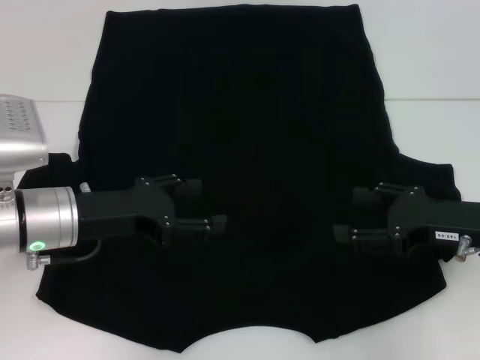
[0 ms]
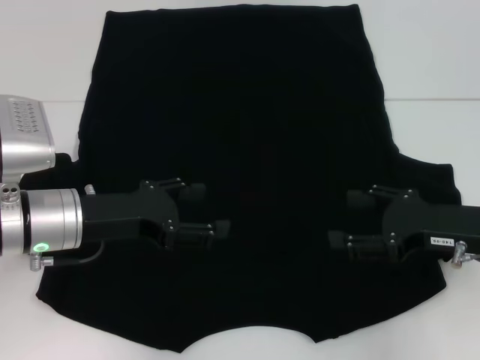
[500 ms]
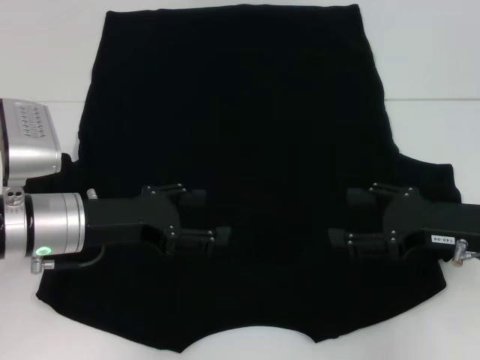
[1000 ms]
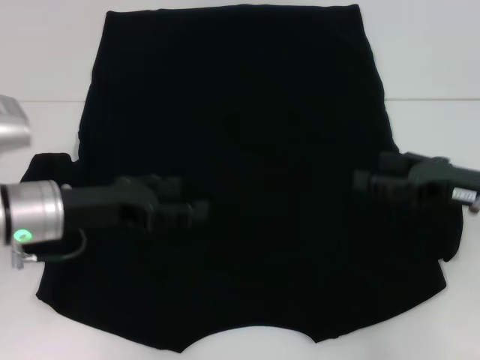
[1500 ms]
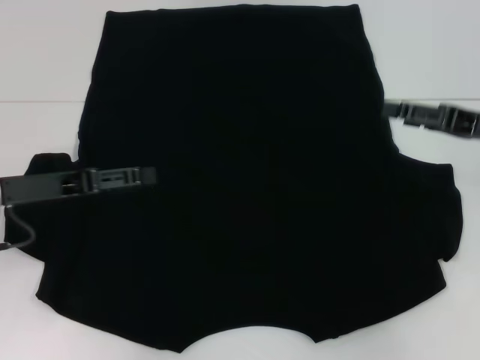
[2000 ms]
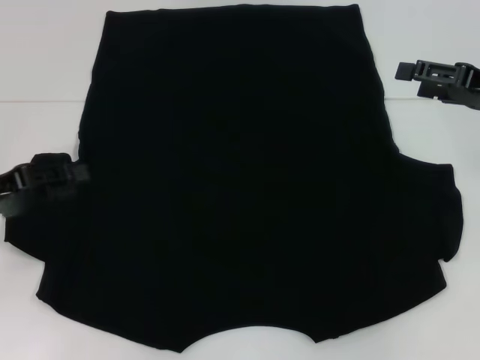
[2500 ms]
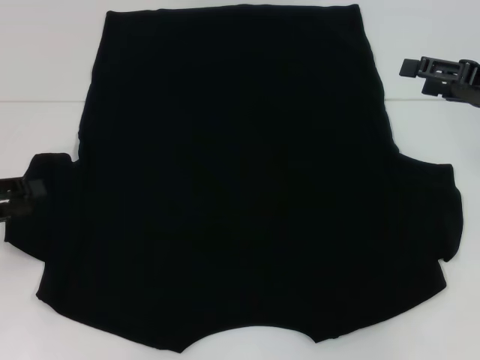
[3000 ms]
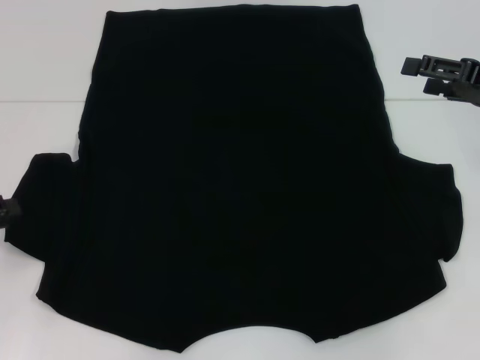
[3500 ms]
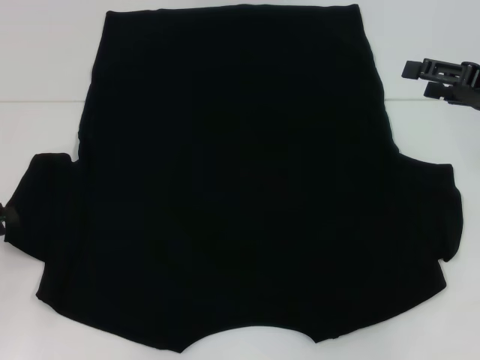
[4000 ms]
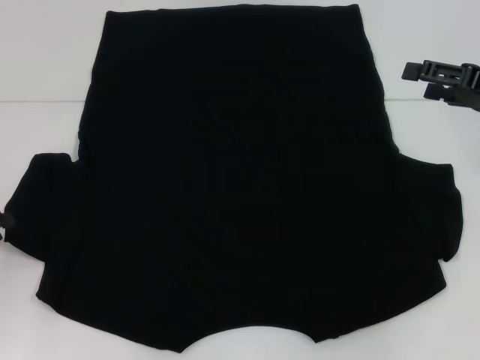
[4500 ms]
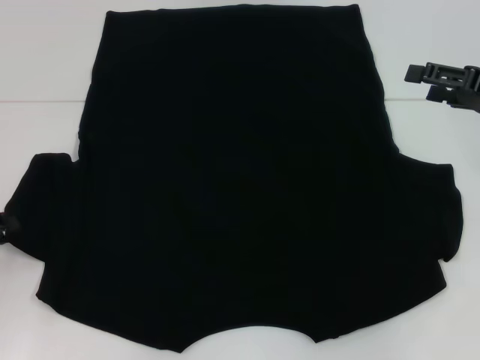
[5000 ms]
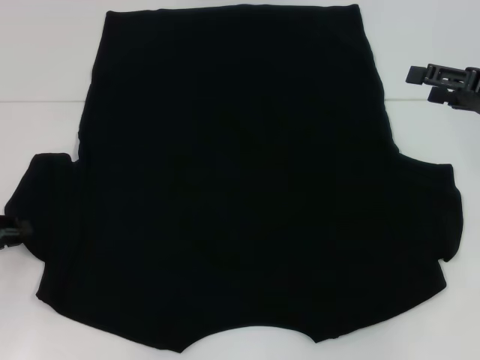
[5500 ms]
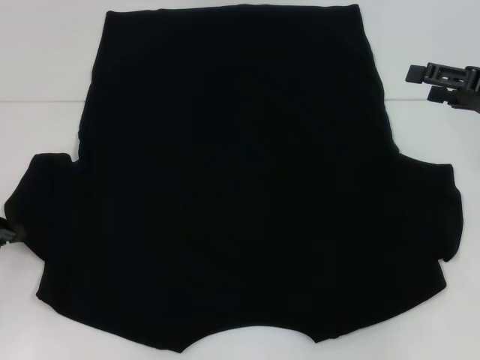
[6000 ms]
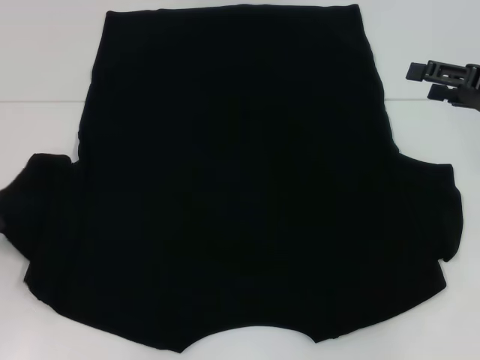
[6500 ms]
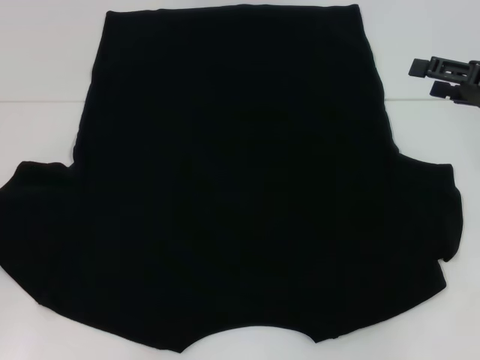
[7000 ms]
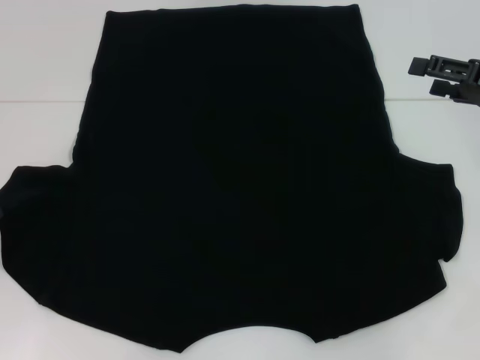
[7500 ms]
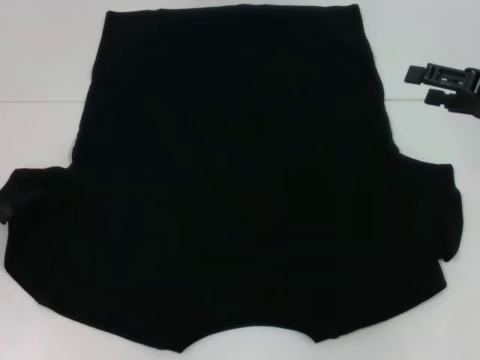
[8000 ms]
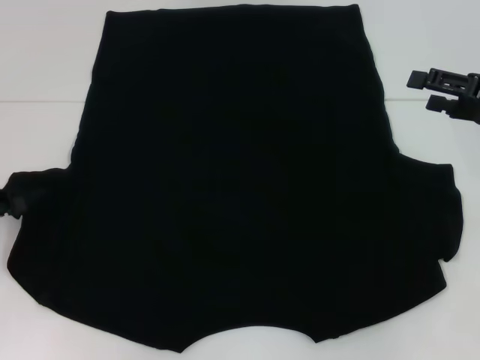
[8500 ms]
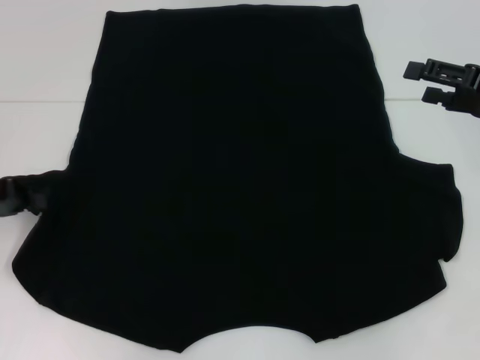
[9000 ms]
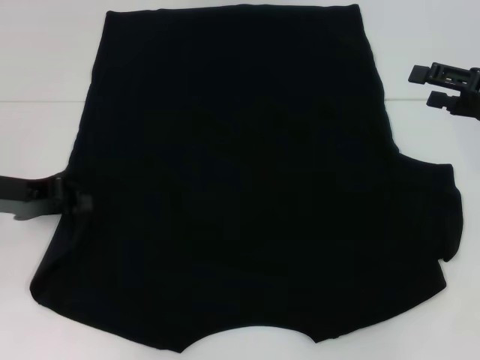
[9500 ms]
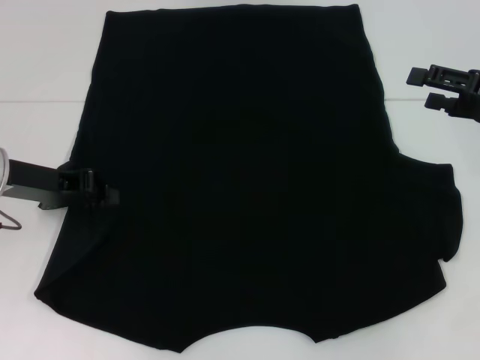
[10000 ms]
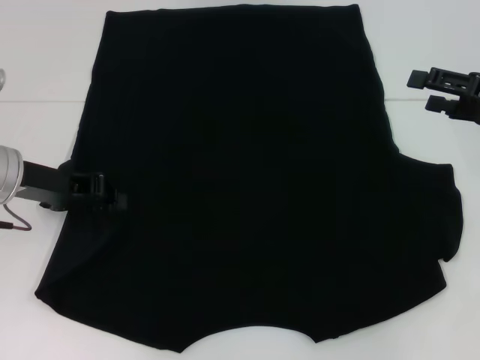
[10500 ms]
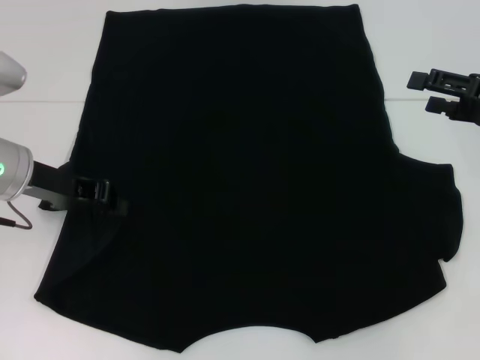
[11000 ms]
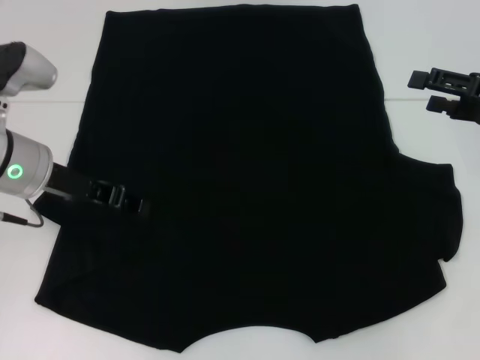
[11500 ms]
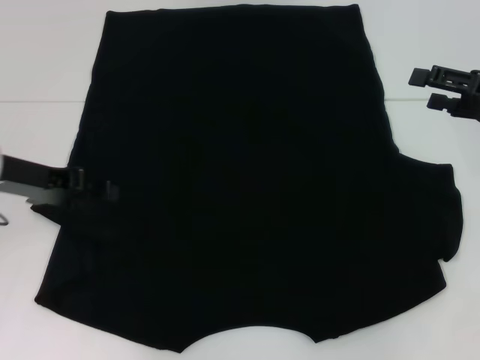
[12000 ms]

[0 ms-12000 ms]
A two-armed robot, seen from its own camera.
Step, 0 ms to 11500 ms: Fold the bottom left sleeve with your left hand.
0 ms to 2000 ms: The right gripper moves upward and forward, about 10 cm, while the left gripper shifts approximately 5 cm to the left.
2000 ms to 4000 ms: The left gripper is displaced to the left by some 10 cm, and closes.
4000 ms to 8000 ms: There are only small adjustments of the grippers.
8000 ms to 10000 ms: The left gripper shifts some 10 cm to the right and forward.
10000 ms to 12000 ms: The left gripper opens its fingers.

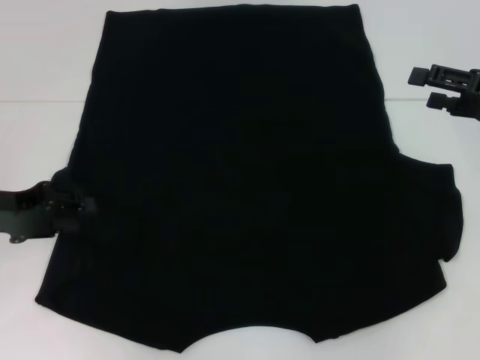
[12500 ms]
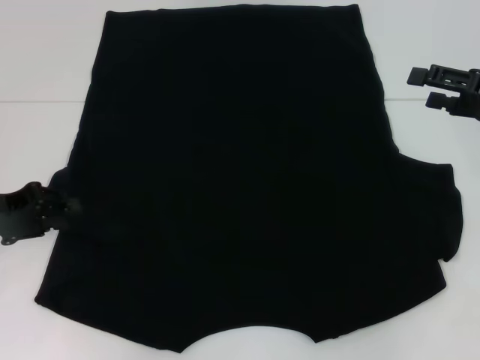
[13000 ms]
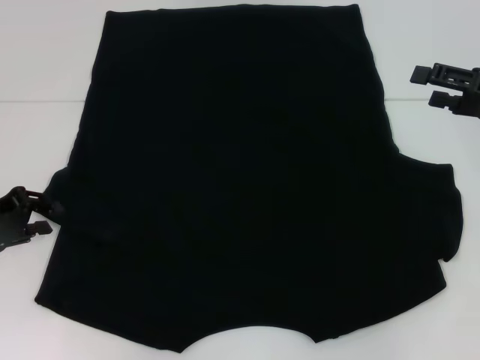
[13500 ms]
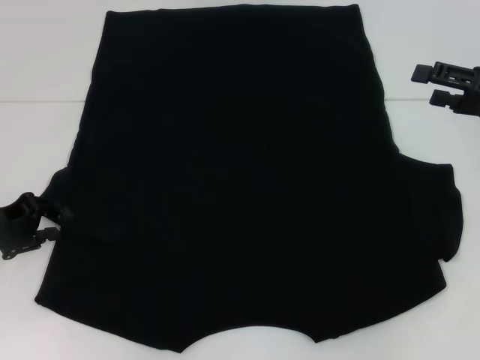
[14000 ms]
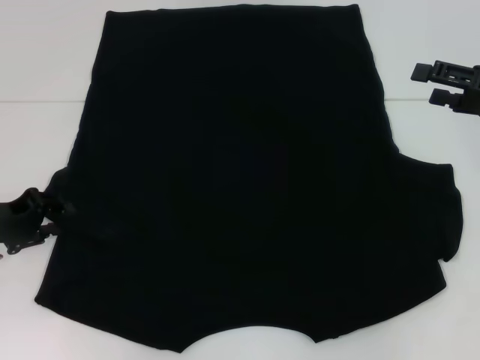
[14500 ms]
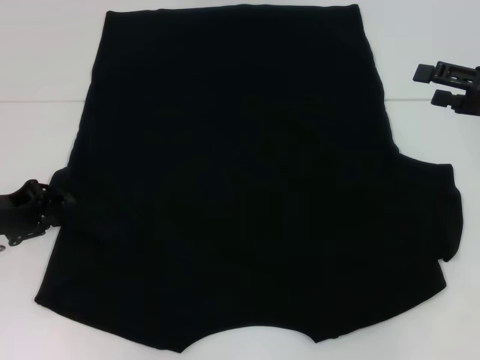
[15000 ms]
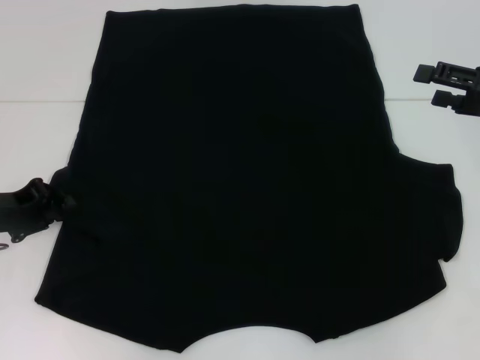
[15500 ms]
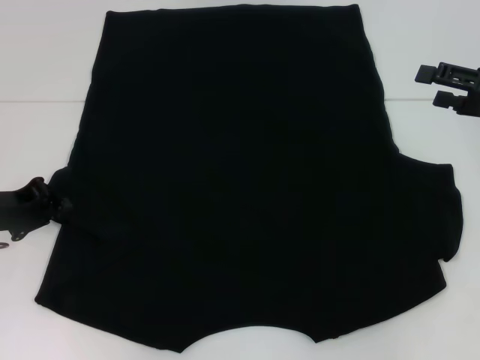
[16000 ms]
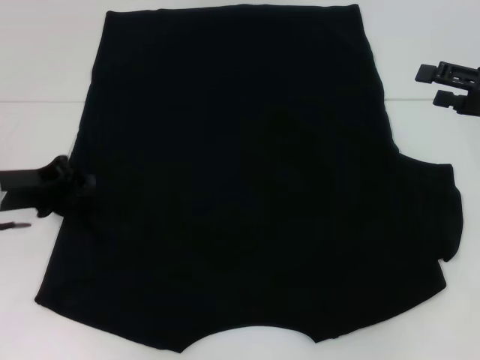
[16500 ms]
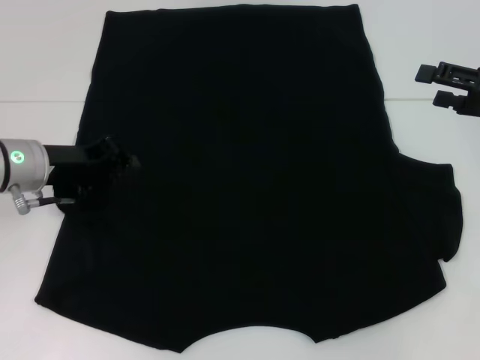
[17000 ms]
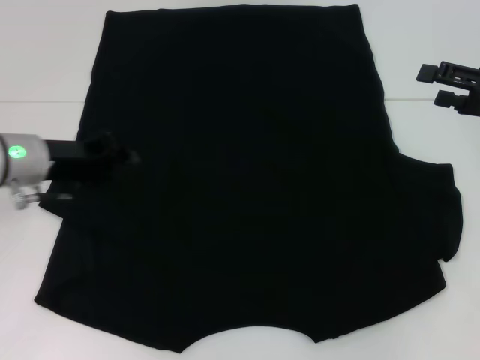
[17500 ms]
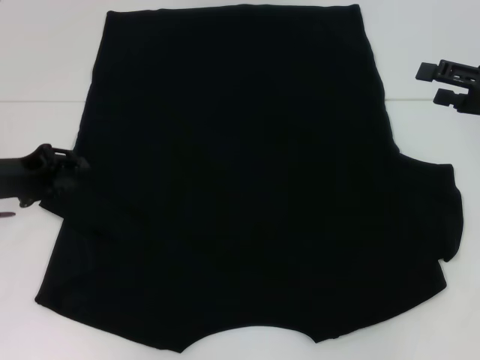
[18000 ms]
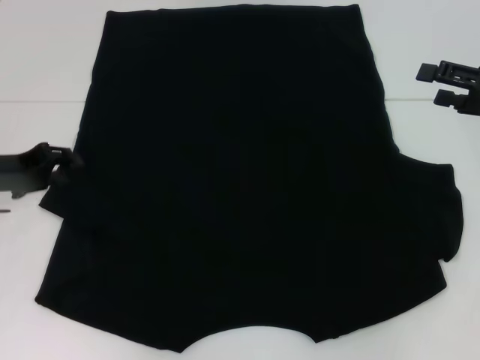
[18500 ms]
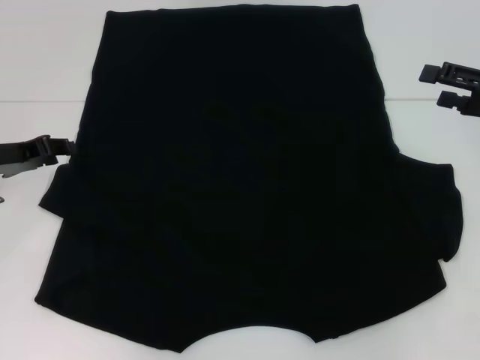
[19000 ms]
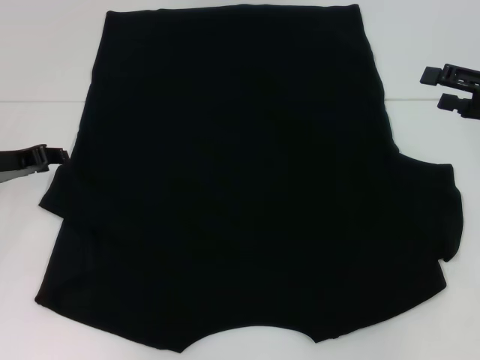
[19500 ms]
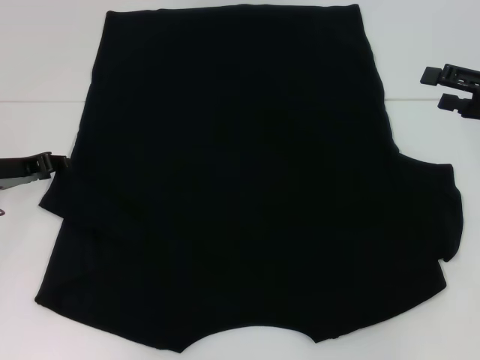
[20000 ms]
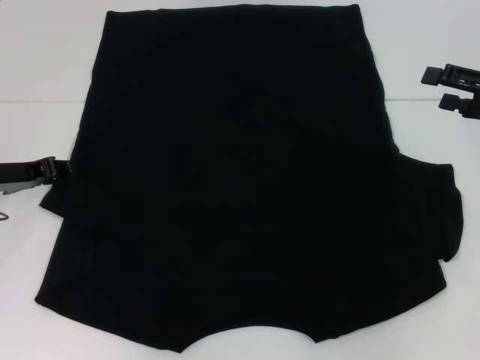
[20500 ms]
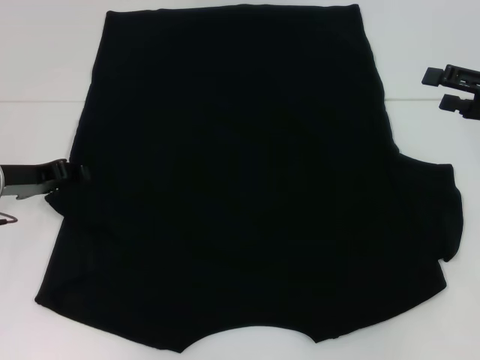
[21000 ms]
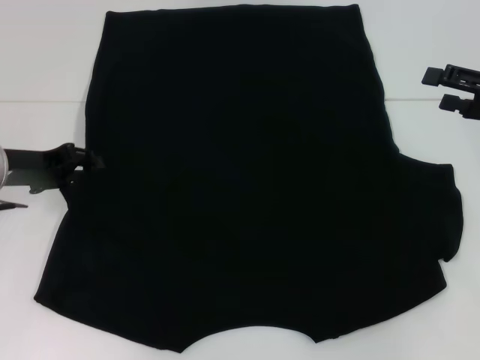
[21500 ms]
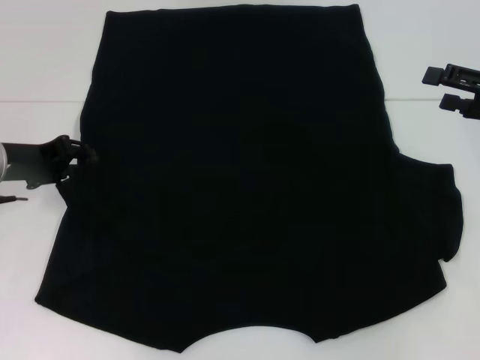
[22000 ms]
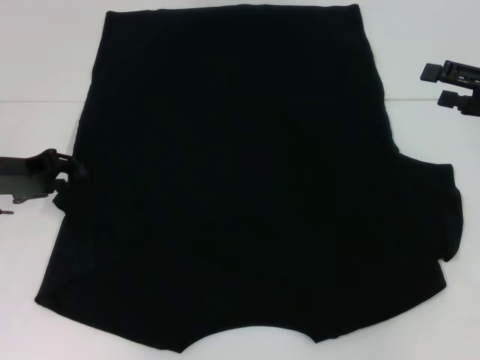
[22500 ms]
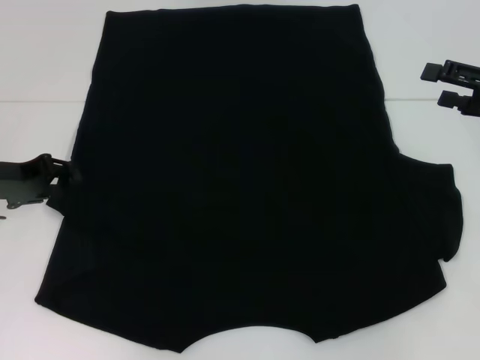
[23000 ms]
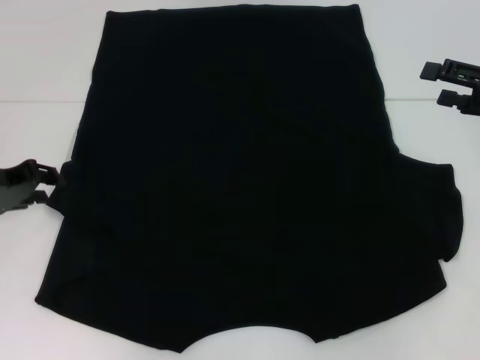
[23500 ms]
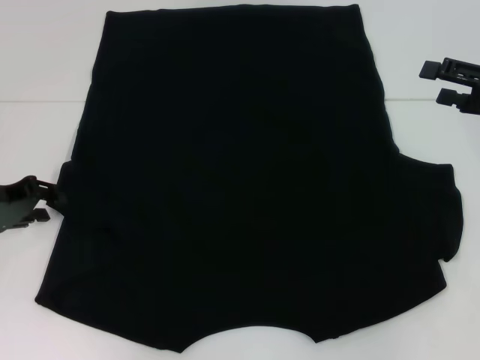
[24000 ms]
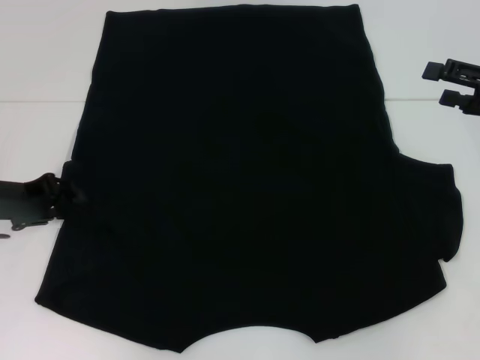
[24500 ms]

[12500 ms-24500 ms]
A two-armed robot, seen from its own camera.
12500 ms to 14500 ms: There are only small adjustments of the grippers.
14500 ms to 16500 ms: The left gripper closes its fingers.
16500 ms to 18500 ms: The left gripper opens up.
20500 ms to 22500 ms: The grippers move only a little.
22500 ms to 24500 ms: The grippers move only a little.

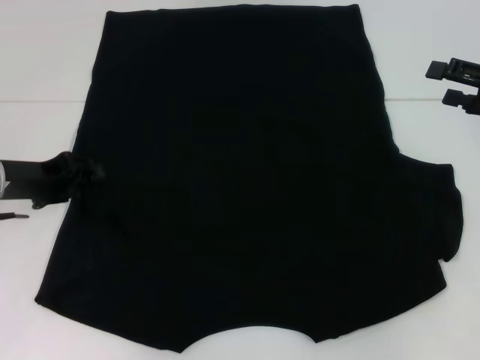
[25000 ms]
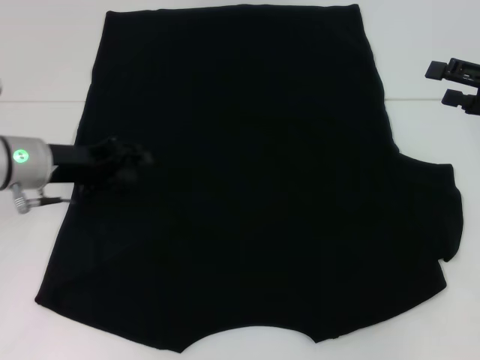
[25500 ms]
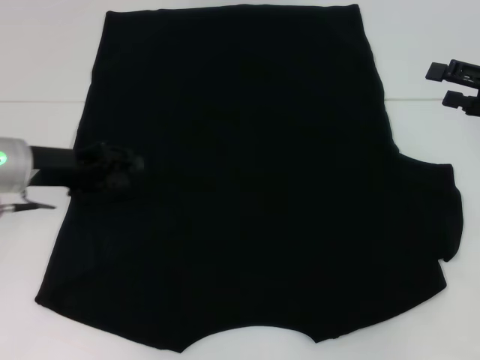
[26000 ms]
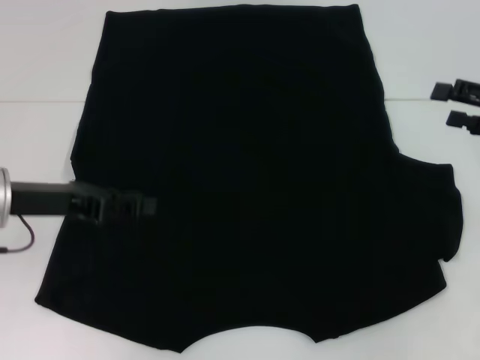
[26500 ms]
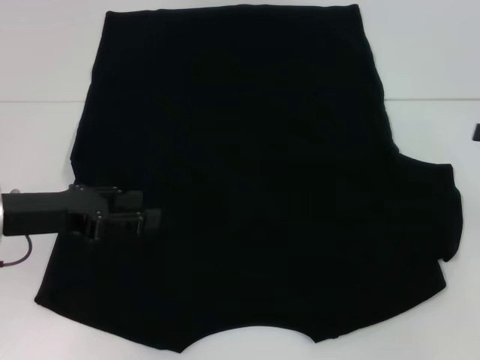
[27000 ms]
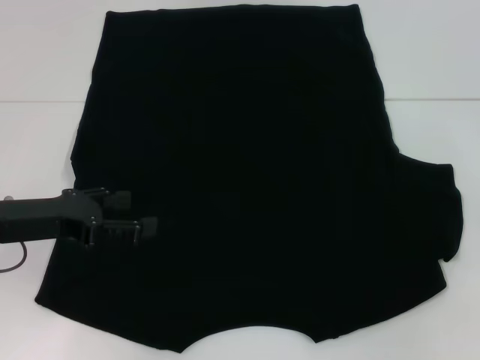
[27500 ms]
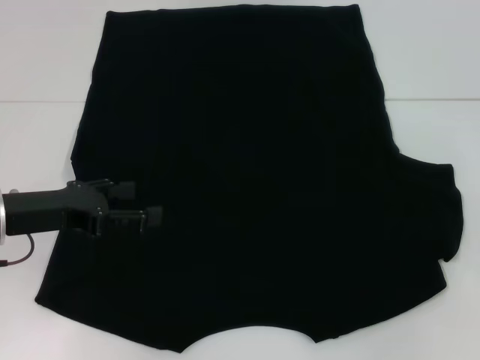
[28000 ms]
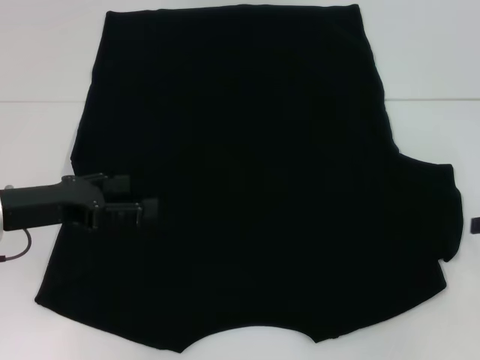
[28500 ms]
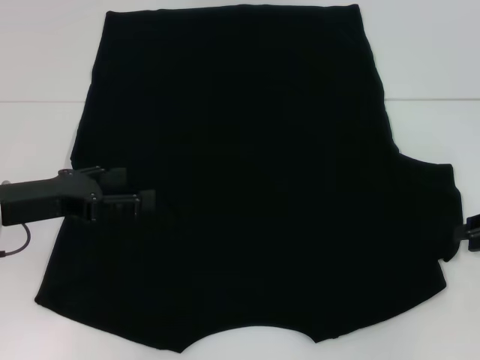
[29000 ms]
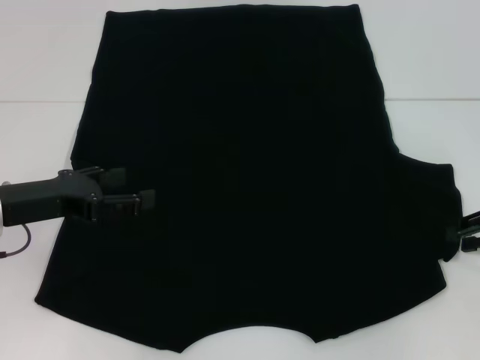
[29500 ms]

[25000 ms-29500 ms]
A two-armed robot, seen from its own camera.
25000 ms to 27000 ms: The right gripper goes some 5 cm to the right; the left gripper heads backward, covering approximately 5 cm.
27000 ms to 29500 ms: The left gripper opens up.
